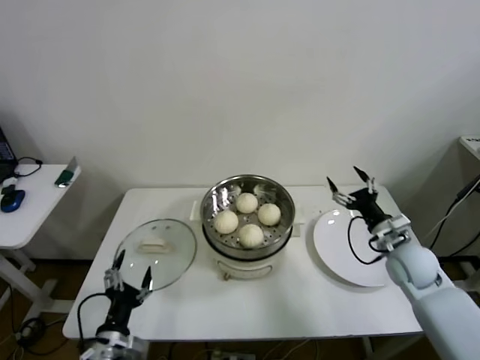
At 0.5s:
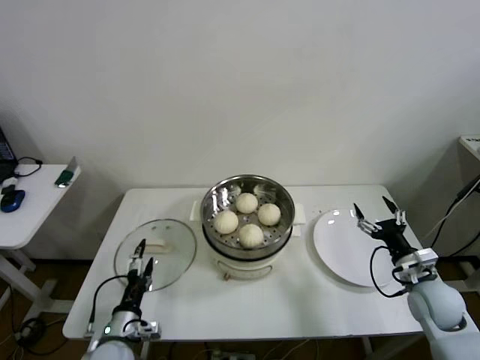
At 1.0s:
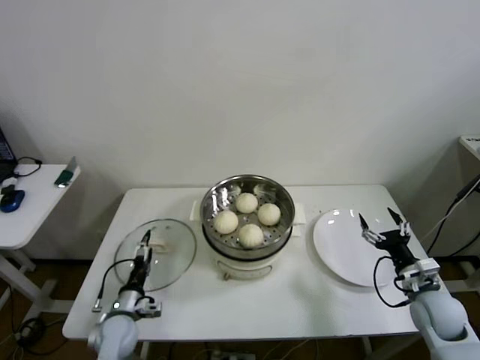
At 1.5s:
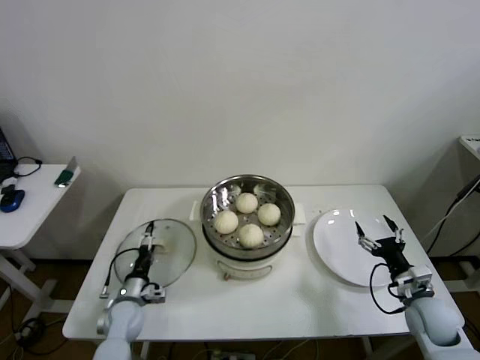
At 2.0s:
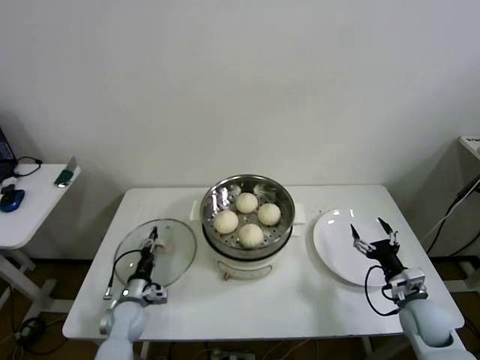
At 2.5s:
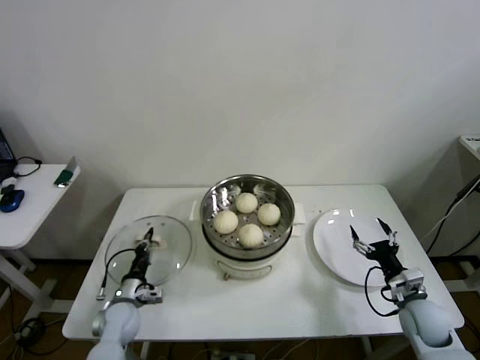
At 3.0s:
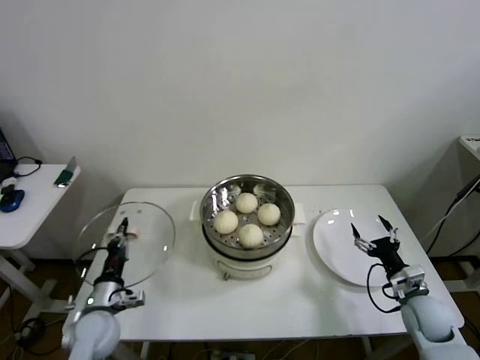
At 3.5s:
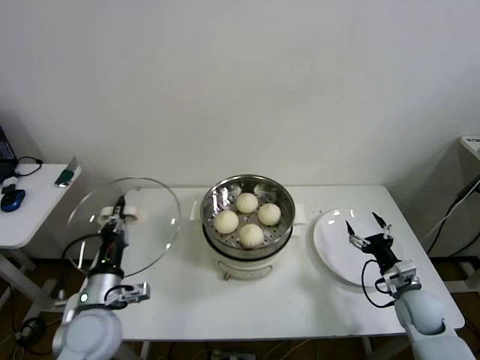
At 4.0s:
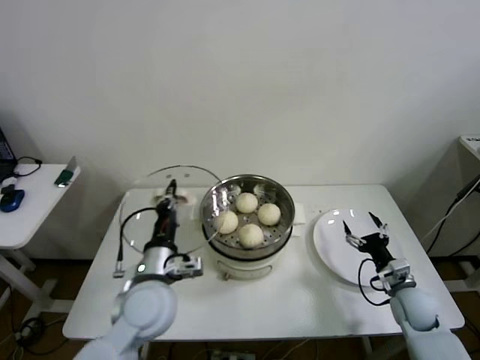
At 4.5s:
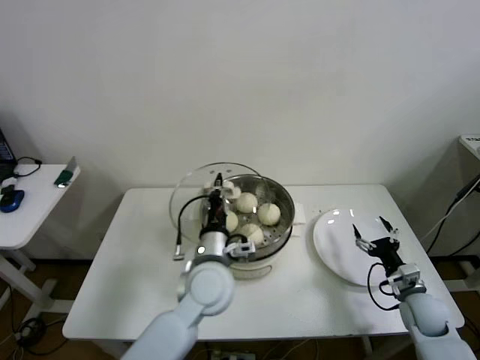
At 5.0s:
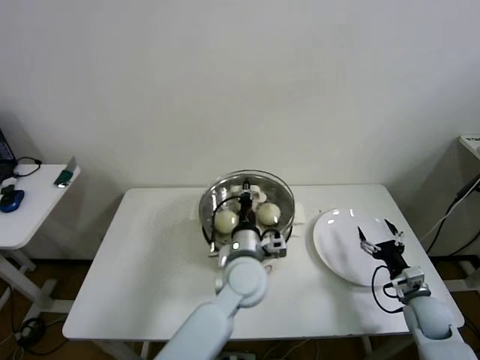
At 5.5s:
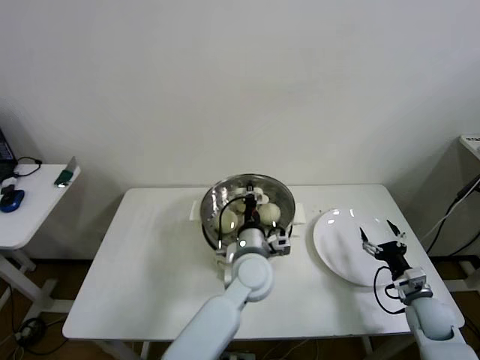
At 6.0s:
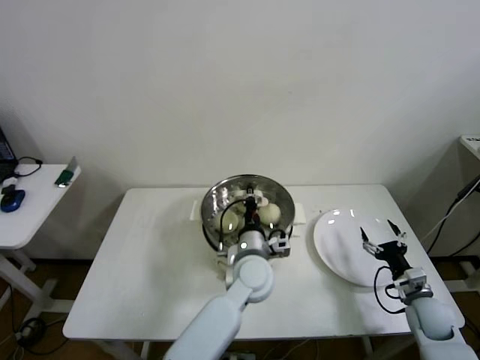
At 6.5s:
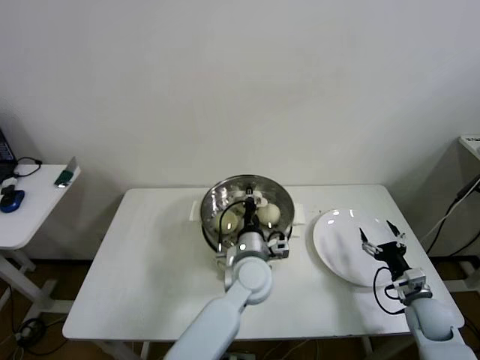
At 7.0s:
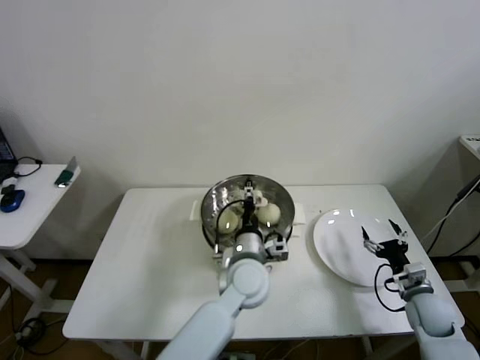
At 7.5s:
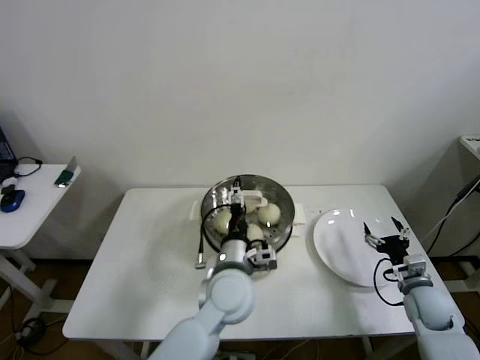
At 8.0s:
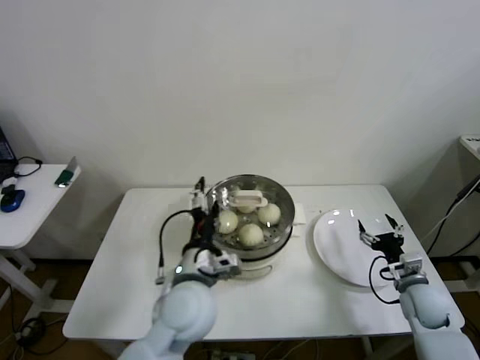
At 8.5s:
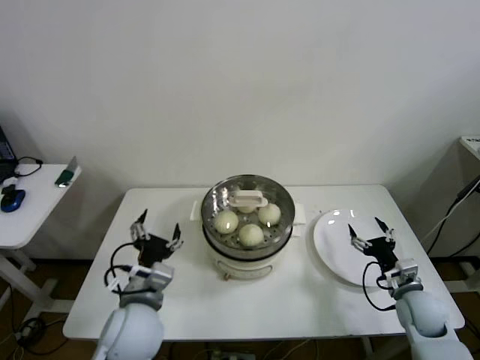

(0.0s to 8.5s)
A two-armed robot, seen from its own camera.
Step, 0.0s - 2.0s: Grasp the pot lid with left gripper.
Step, 2.5s - 7.5s: Place the pot lid on the steamer with left gripper.
0.0s - 2.0s: The right gripper is displaced backward and downward by about 15 cm, while the left gripper heads forward and downward, covering about 20 cm, and closes up.
2.0s - 4.0s: The left gripper travels upward and to the right by about 25 cm, and closes.
4.0s - 6.5s: The left gripper goes about 20 cm to the right and forward.
6.5s - 8.5s: The left gripper moves to the left and backward, about 25 cm, and opens up.

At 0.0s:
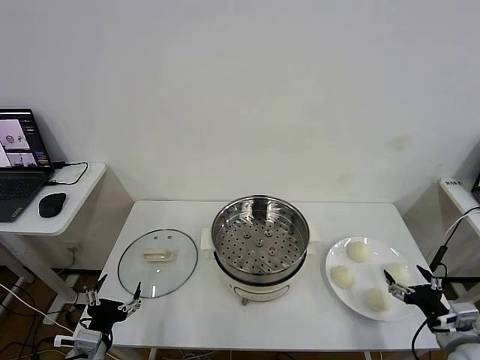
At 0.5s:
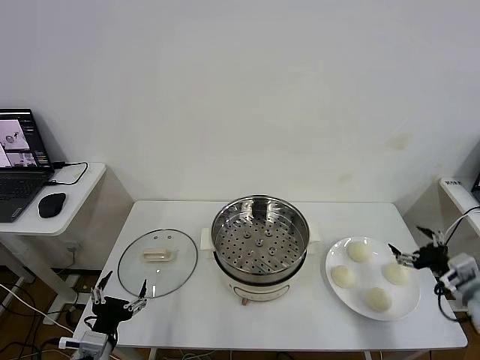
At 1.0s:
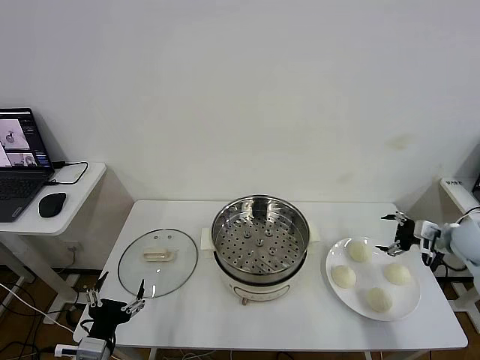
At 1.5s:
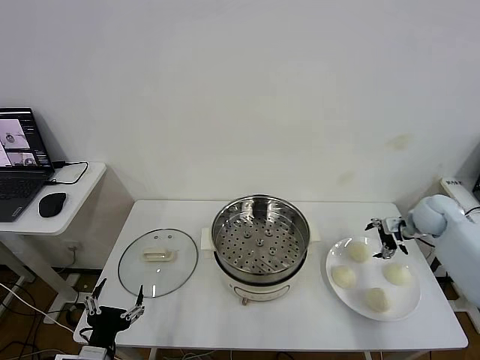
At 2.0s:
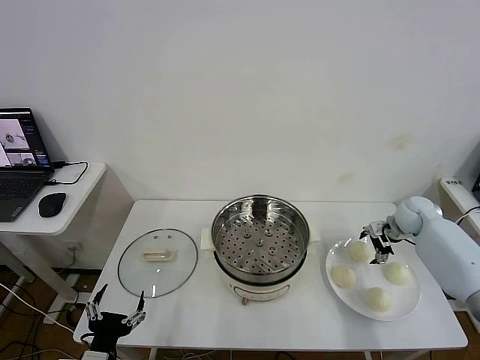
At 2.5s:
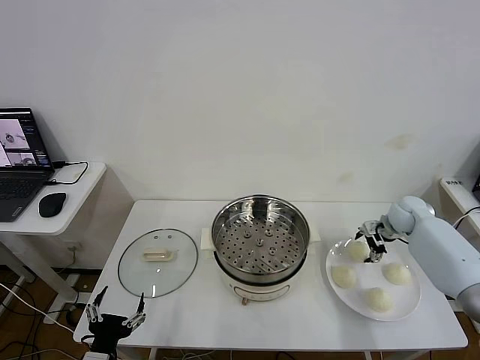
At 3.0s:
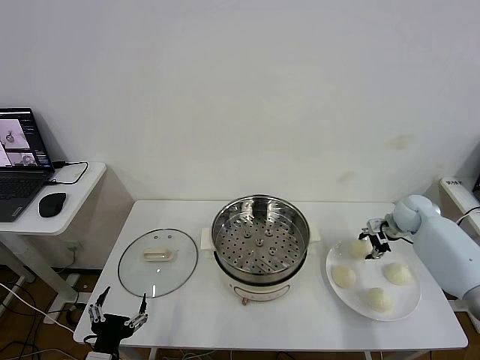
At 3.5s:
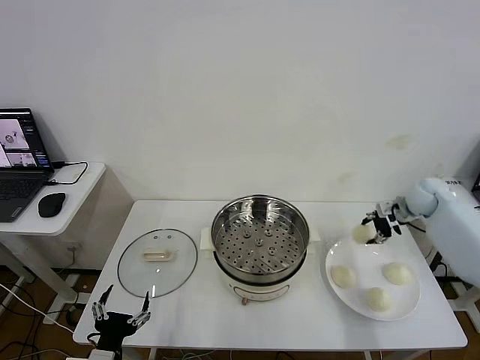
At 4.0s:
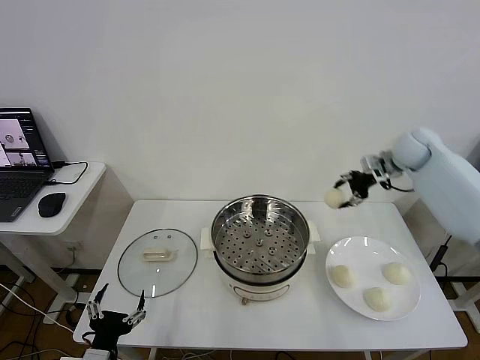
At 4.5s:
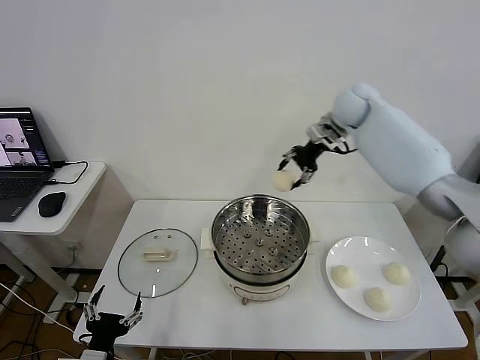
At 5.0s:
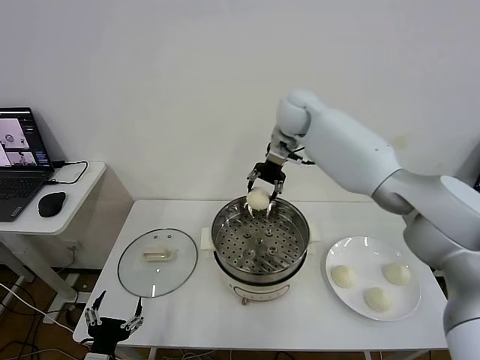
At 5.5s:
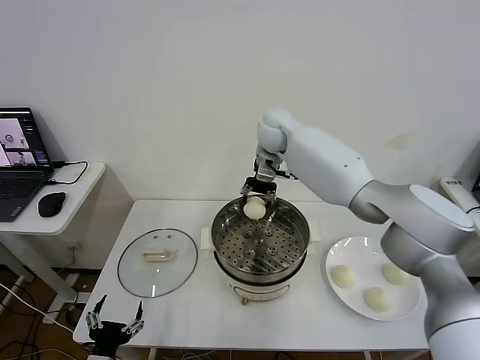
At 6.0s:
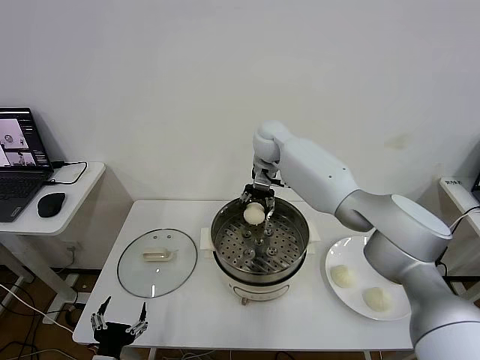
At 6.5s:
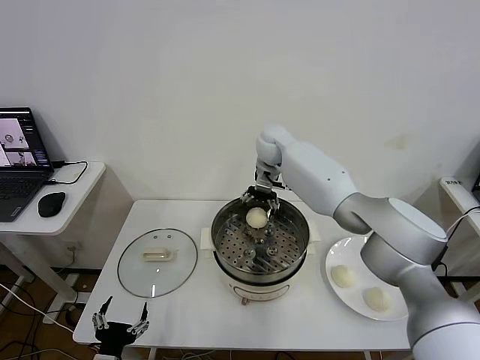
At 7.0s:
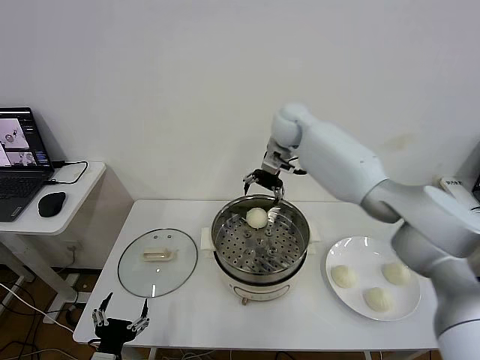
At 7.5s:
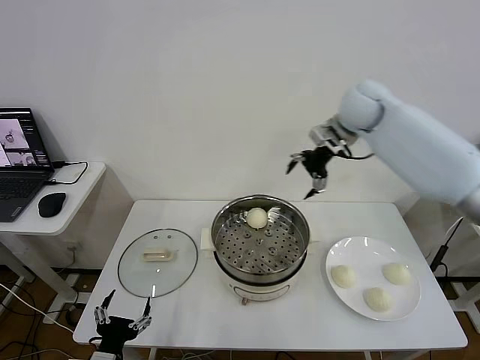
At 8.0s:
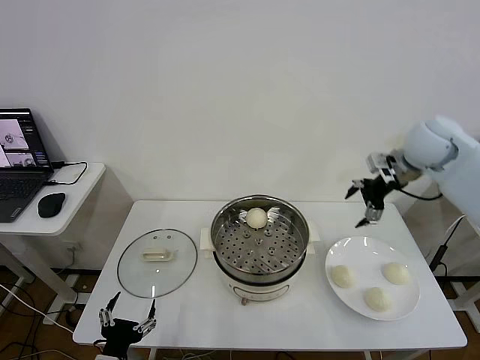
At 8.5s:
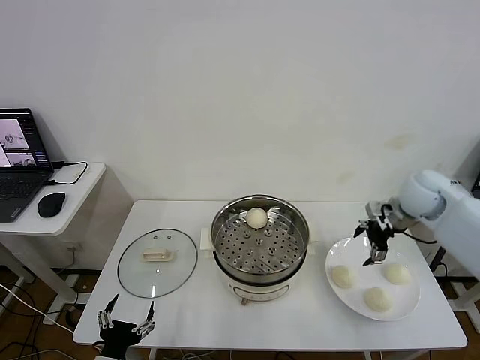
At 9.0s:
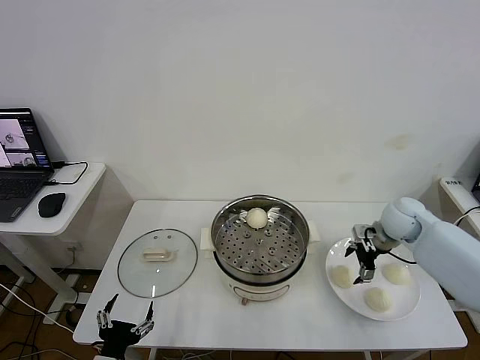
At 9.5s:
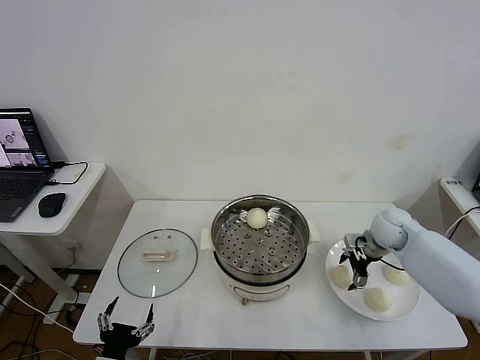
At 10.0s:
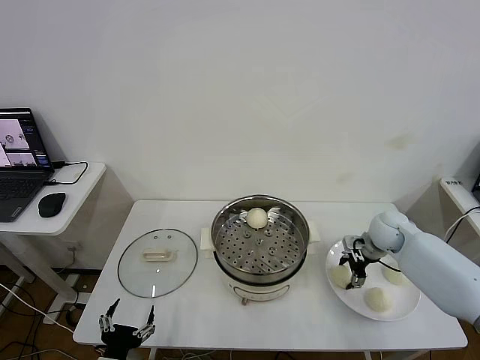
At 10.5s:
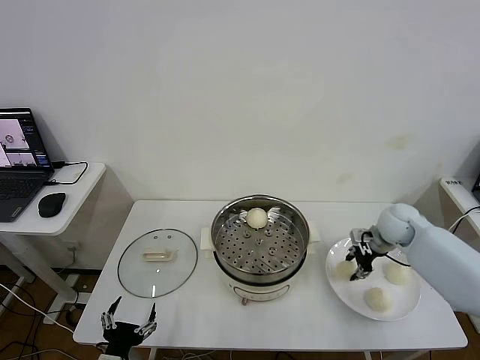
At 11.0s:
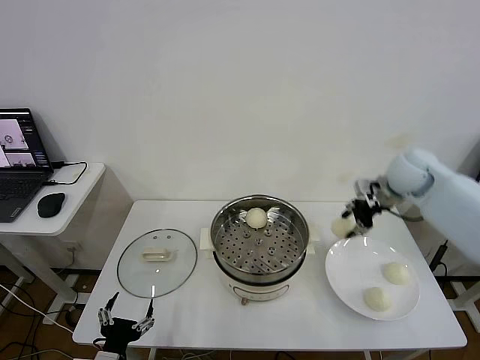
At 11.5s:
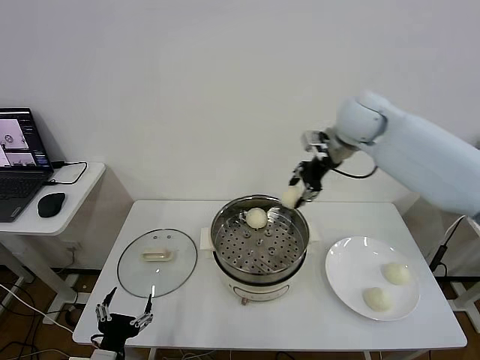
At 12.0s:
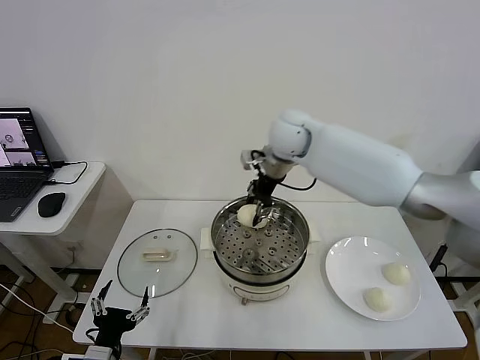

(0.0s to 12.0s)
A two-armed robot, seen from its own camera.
Step, 0.0s - 2.5s: Grasp the baozi in the plate with right gripper.
Step, 3.0s - 6.5s: Place the baozi on the steamer with right gripper.
Step, 7.0s - 10.0s: Grasp the baozi in the plate with right gripper.
2.0s - 4.0s: The right gripper heads upward, covering roughly 20 cm, and closes up.
4.0s - 6.0s: The right gripper shifts roughly 30 cm to the left.
6.0s - 8.0s: The right gripper heads to the right and backward, covering roughly 35 cm, and opens its fingers.
8.0s - 10.0s: The right gripper heads downward, covering about 25 cm, and closes its fingers.
10.0s - 12.0s: The right gripper shifts approximately 35 cm to the left and upward.

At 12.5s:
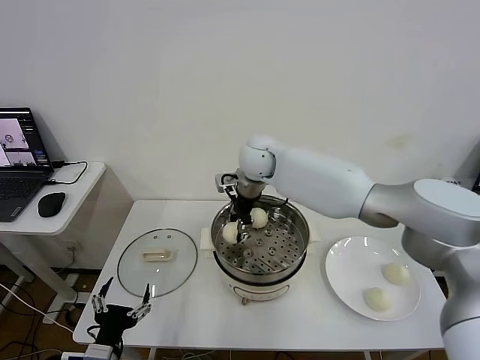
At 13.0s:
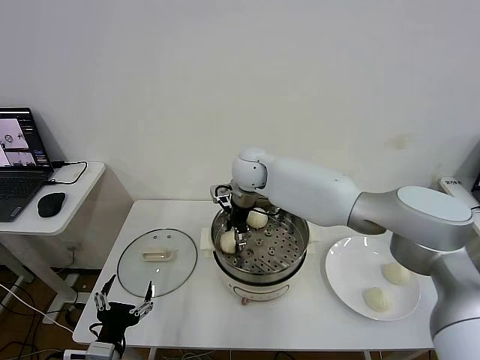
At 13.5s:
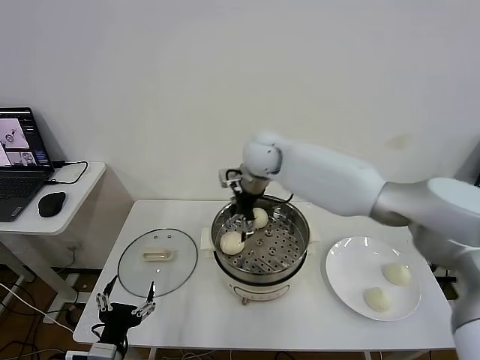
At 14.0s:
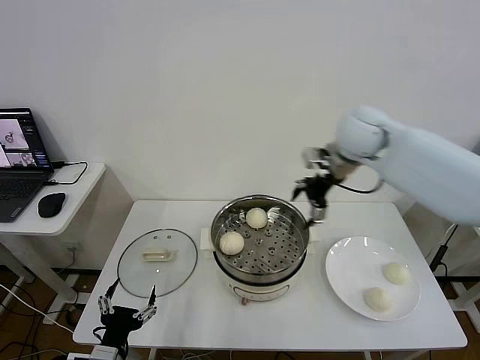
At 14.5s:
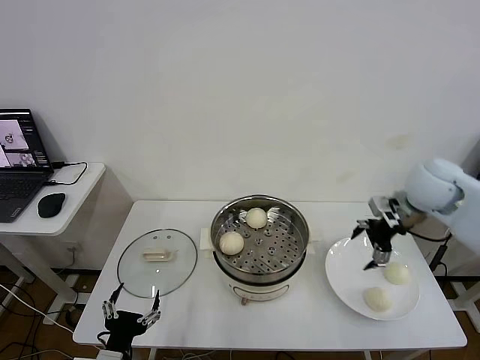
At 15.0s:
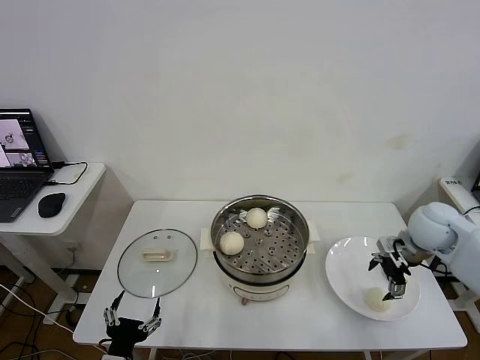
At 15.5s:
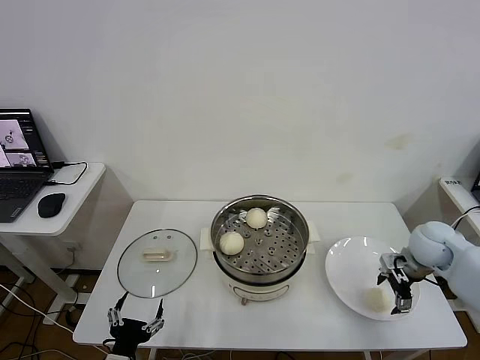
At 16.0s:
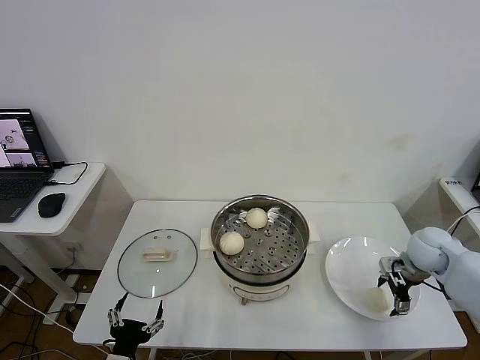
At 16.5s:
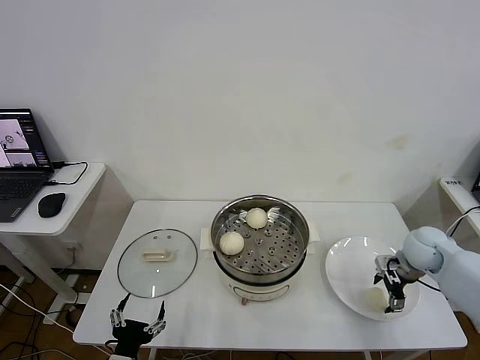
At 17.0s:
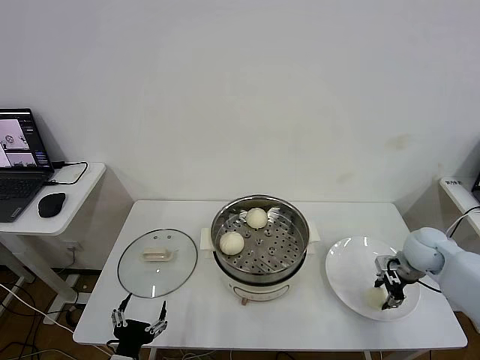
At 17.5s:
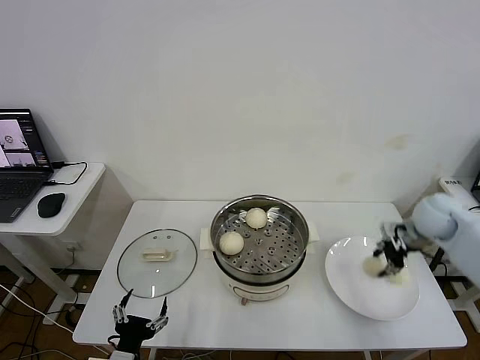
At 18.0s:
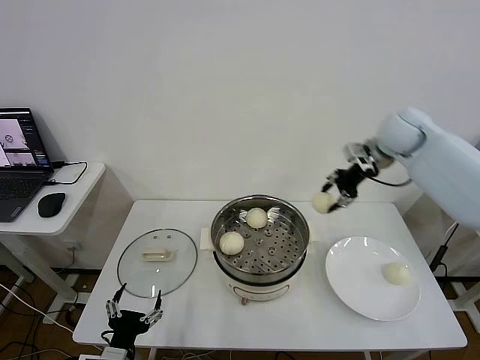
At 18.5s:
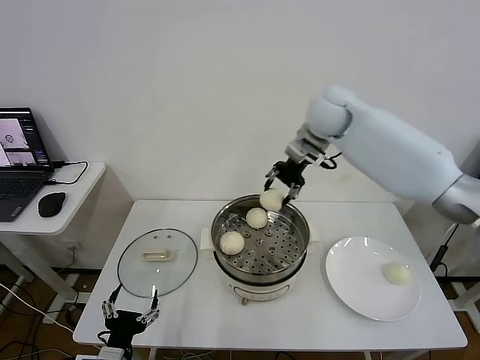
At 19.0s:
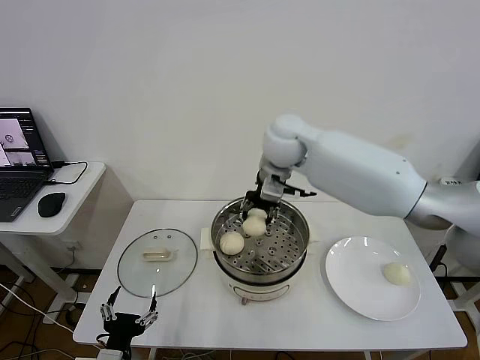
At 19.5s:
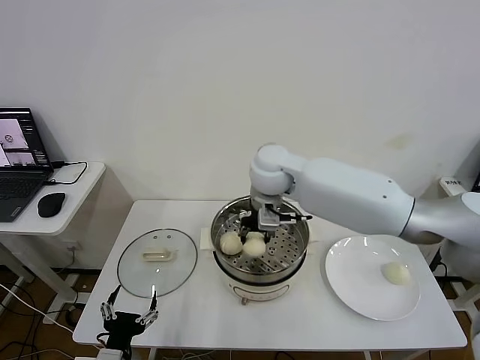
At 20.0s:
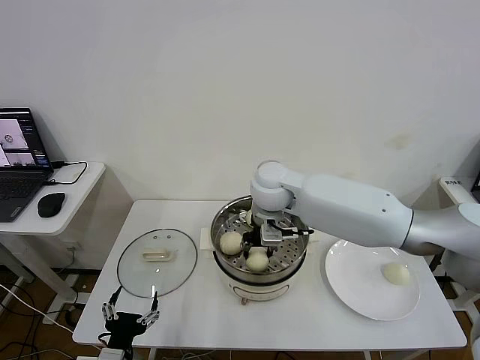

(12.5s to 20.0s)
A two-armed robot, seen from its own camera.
Step, 13.5s - 16.5s: Grasp the baozi in the plate with right gripper.
12.5s - 14.5s: The right gripper moves to the right, roughly 35 cm, and opens.
14.5s - 16.5s: The right gripper goes about 15 cm downward.
16.5s - 18.0s: The right gripper shifts roughly 30 cm upward, forward and to the left, and closes.
18.0s - 20.0s: The right gripper heads to the left, covering approximately 25 cm.
